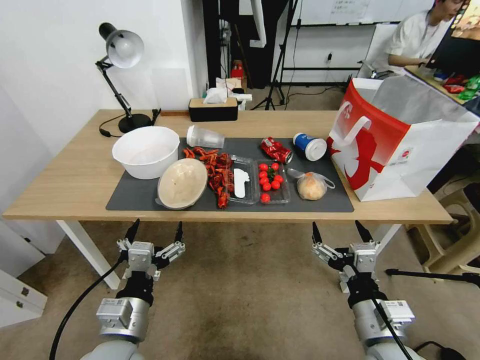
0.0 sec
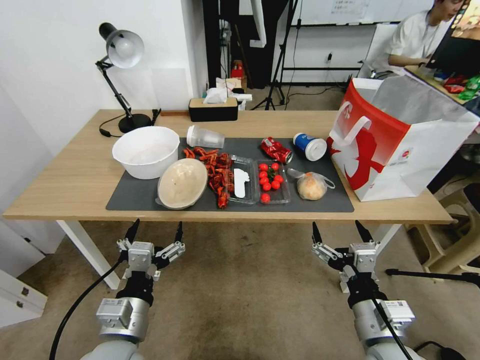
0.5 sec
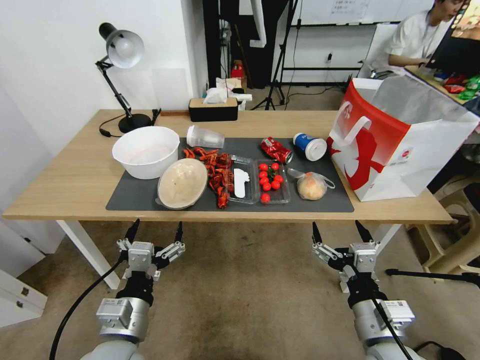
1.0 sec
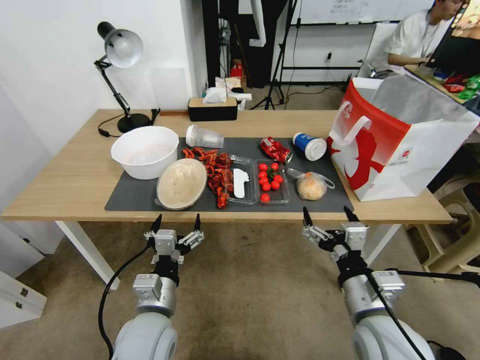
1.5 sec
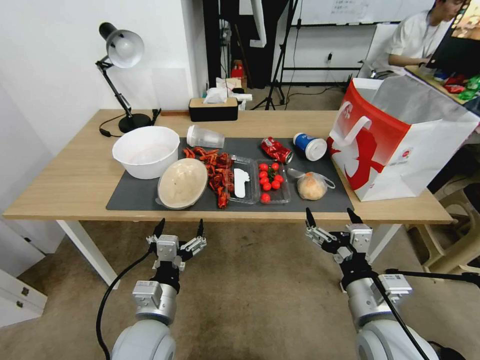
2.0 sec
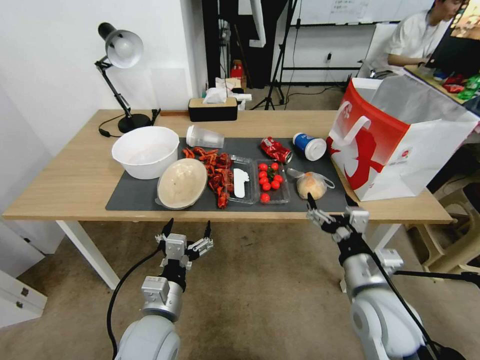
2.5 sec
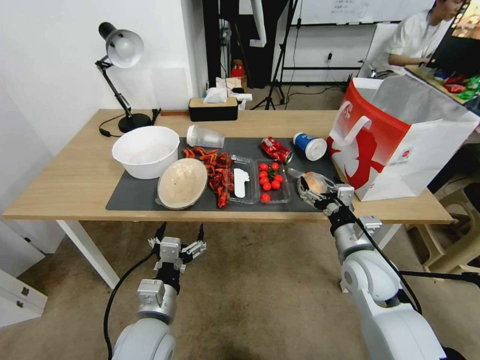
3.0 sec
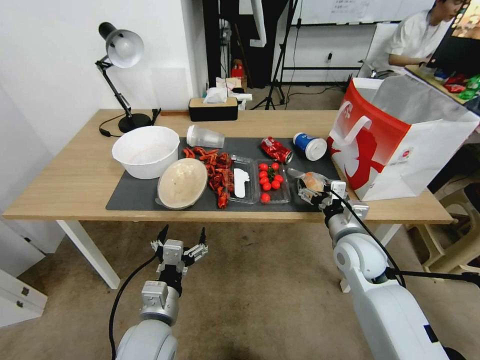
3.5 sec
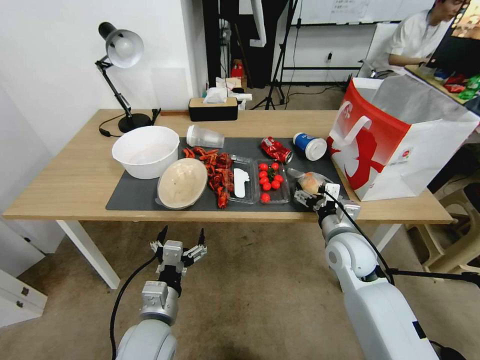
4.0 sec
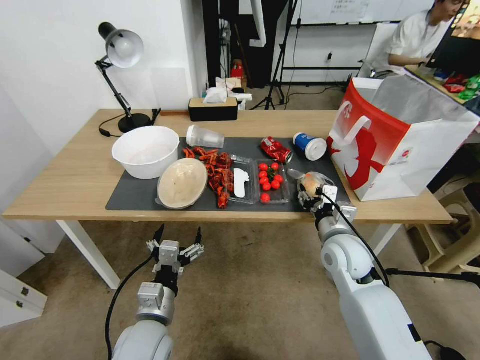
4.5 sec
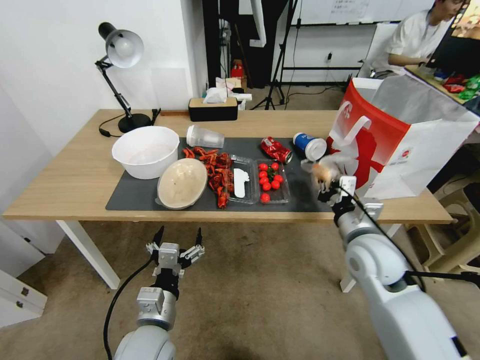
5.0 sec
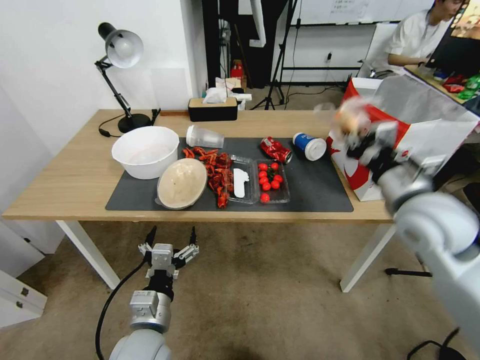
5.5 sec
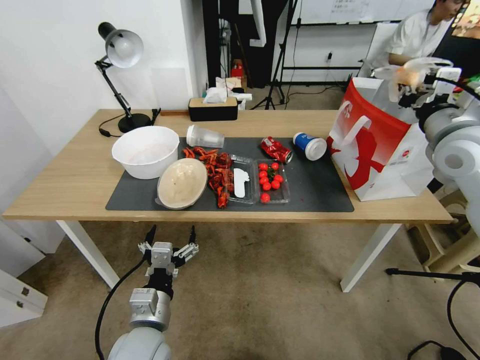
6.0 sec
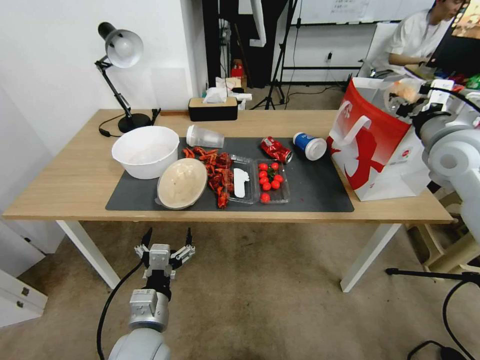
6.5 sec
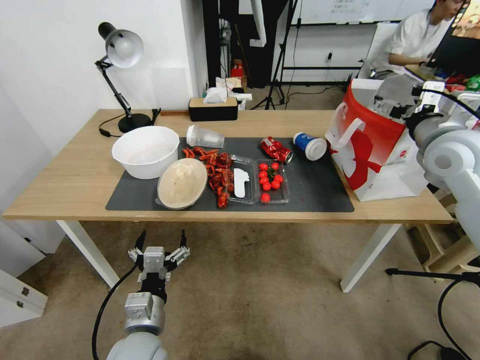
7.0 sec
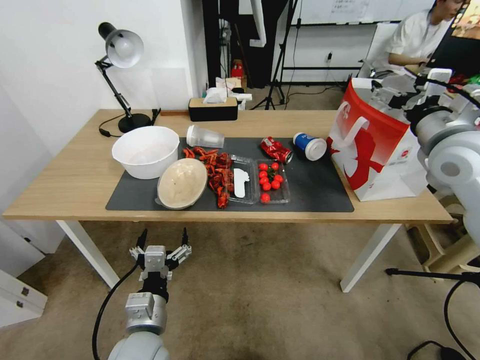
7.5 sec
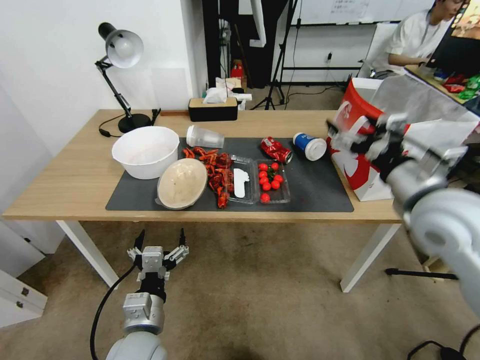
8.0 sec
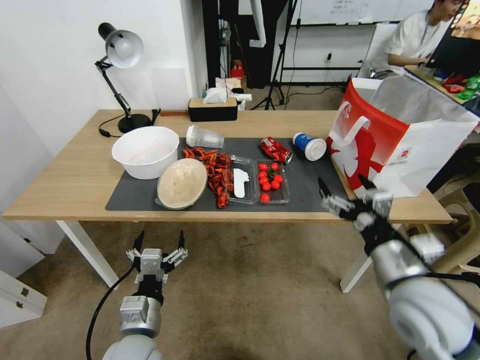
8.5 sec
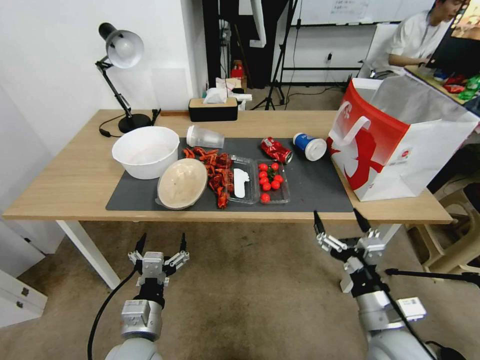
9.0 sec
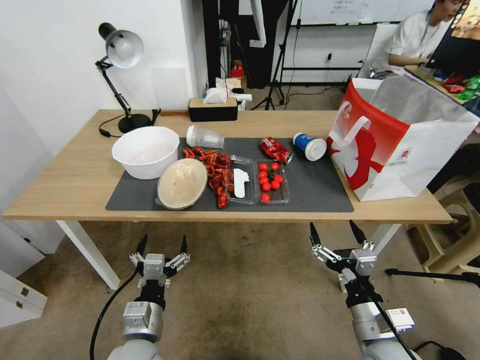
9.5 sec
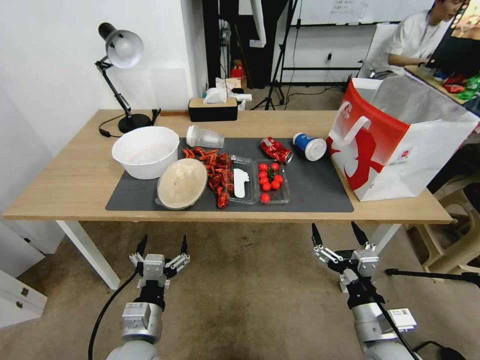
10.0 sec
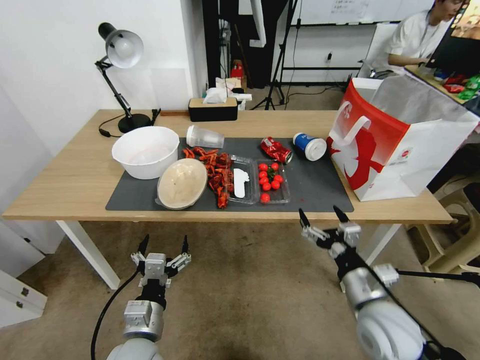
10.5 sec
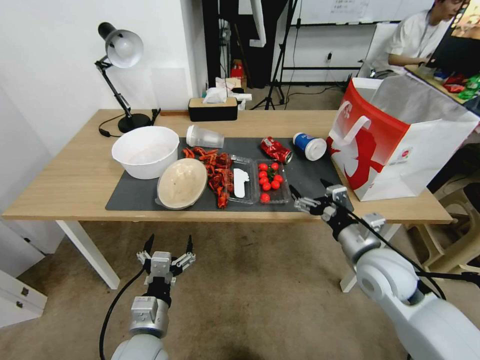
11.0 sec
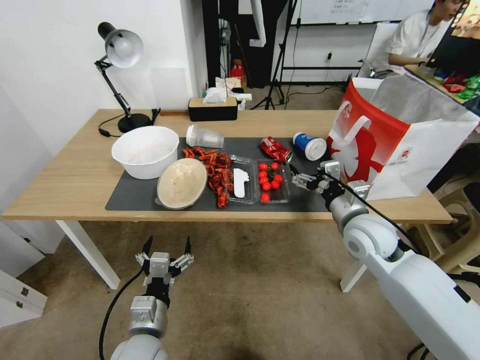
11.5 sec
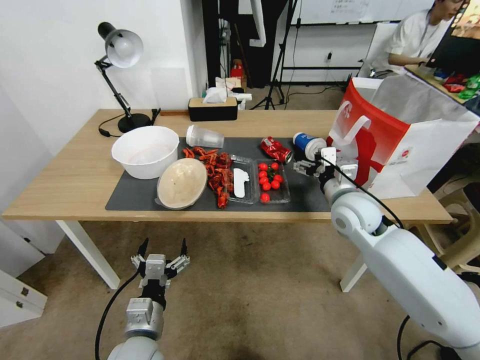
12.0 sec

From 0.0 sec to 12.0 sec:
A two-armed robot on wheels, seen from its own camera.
From 2.0 sec to 4.0 sec: The right gripper moves forward, some 20 cm.
From 4.0 sec to 6.0 sec: The right gripper moves upward and to the right, about 30 cm, and closes its fingers.
From 6.0 sec to 8.0 sec: The right gripper moves backward, to the left and downward, approximately 15 cm, and opens up.
From 8.0 sec to 10.0 sec: The right gripper goes some 25 cm downward and backward.
From 10.0 sec to 12.0 sec: The right gripper shifts approximately 25 cm forward.

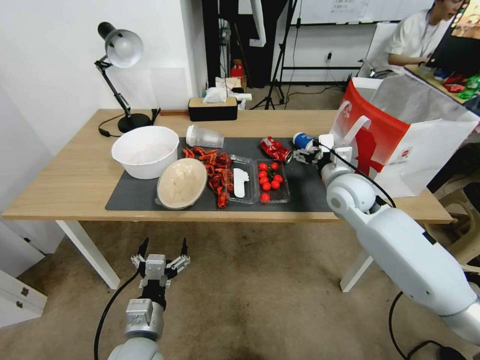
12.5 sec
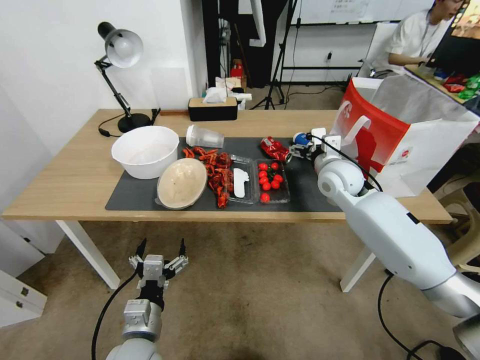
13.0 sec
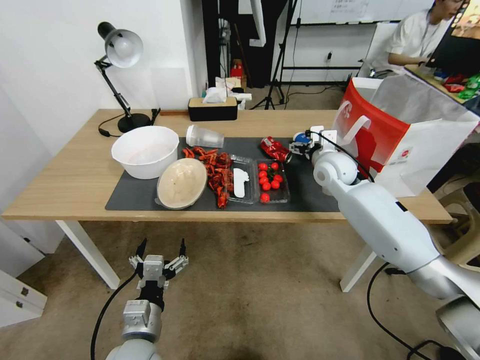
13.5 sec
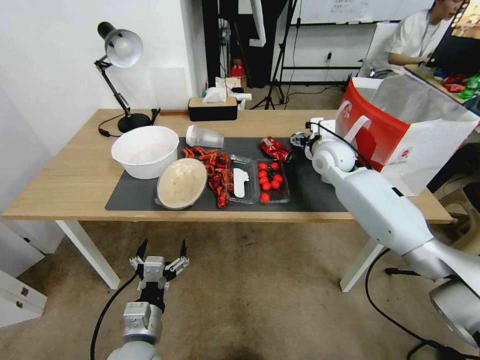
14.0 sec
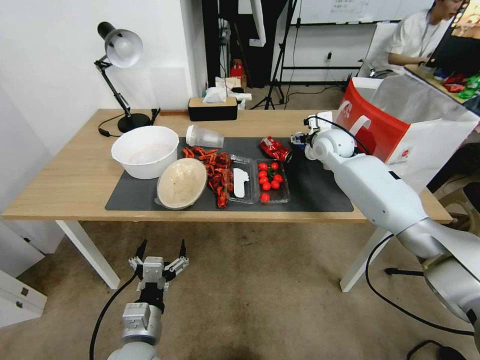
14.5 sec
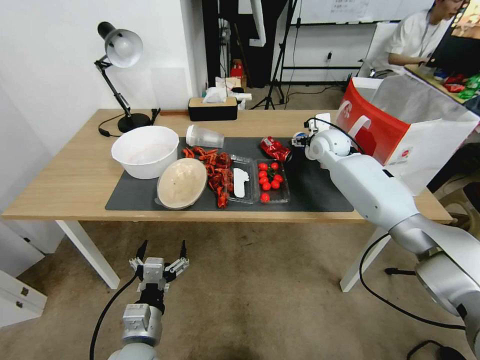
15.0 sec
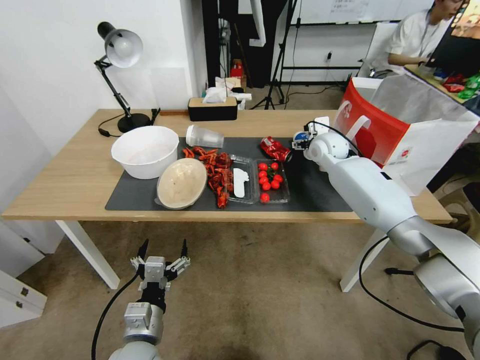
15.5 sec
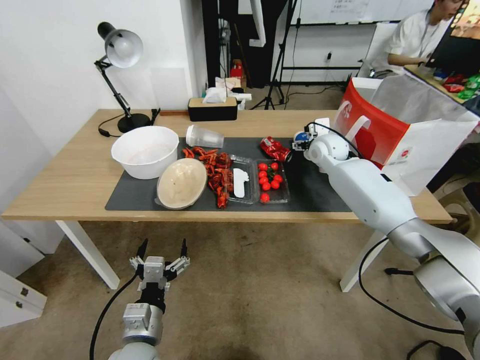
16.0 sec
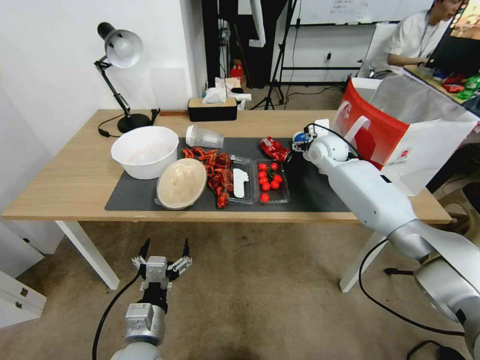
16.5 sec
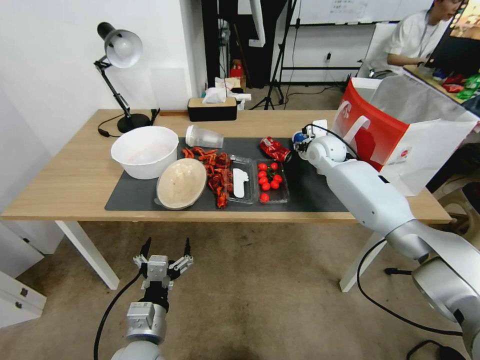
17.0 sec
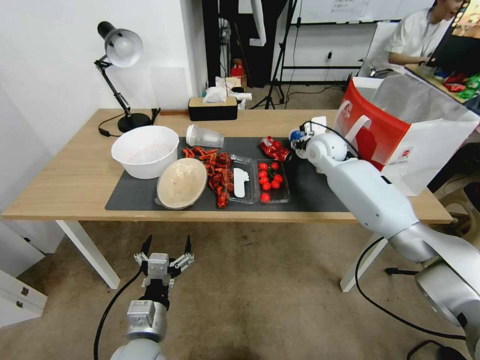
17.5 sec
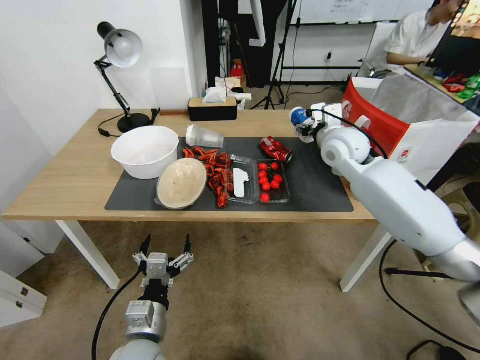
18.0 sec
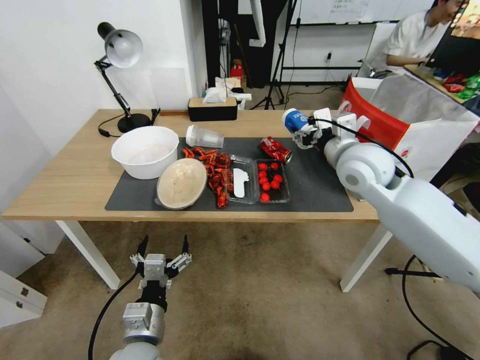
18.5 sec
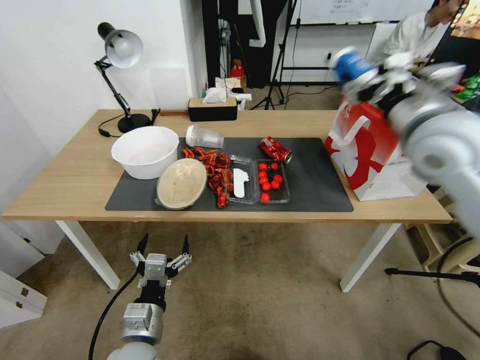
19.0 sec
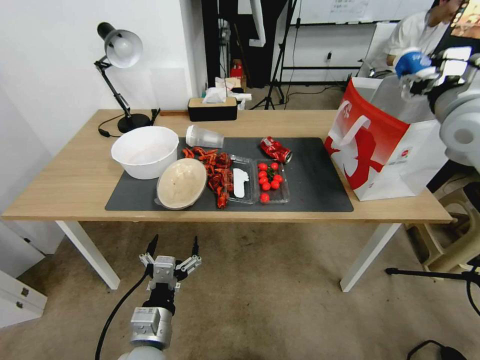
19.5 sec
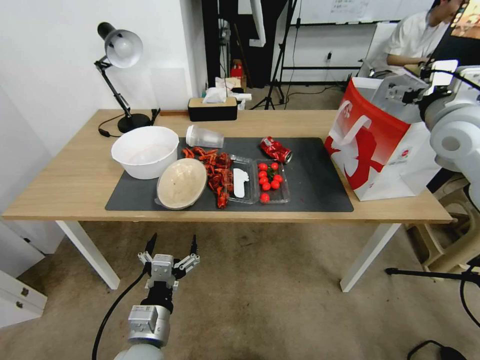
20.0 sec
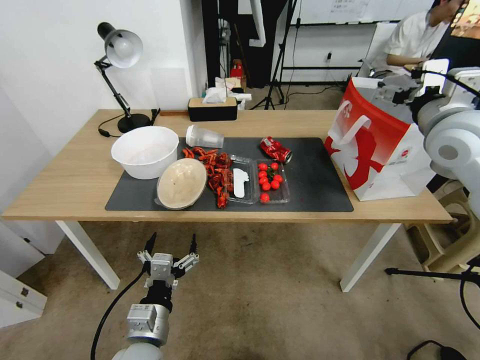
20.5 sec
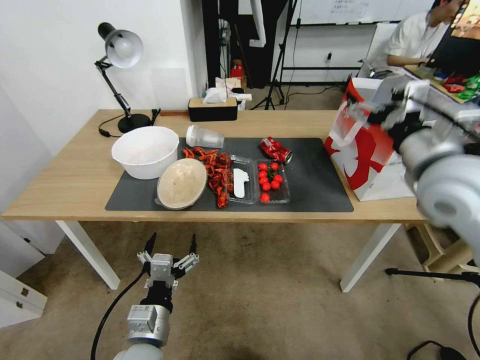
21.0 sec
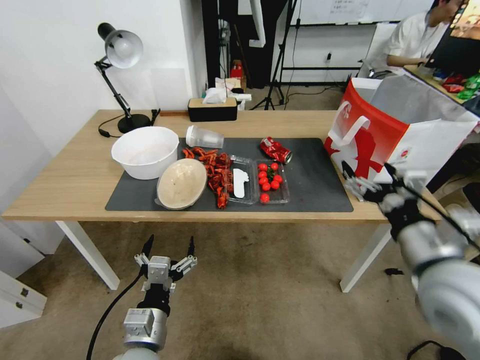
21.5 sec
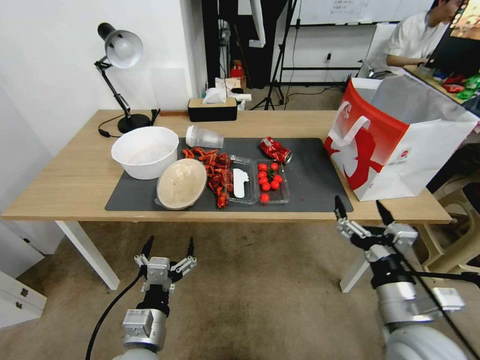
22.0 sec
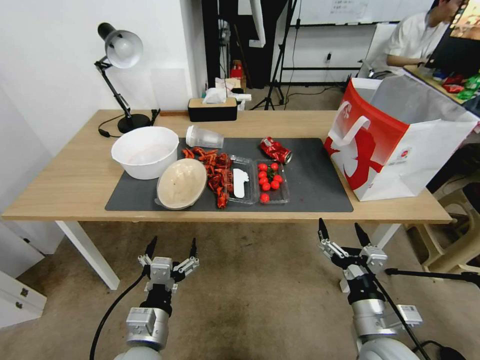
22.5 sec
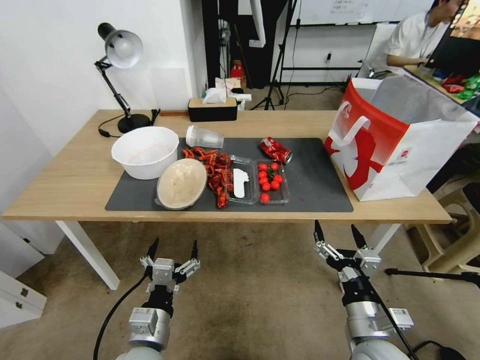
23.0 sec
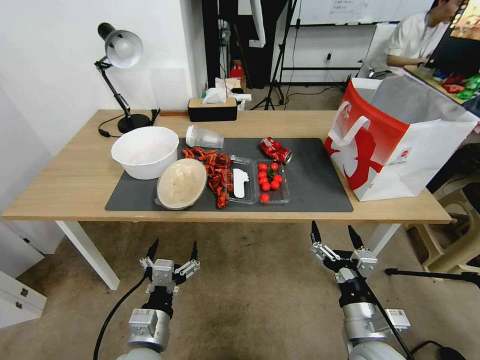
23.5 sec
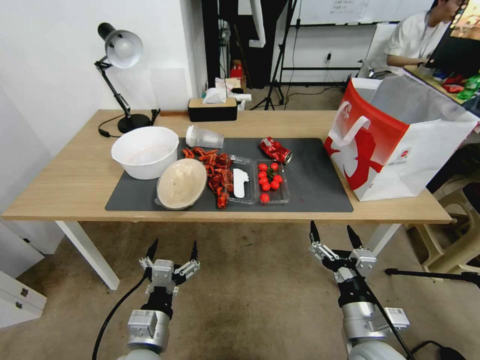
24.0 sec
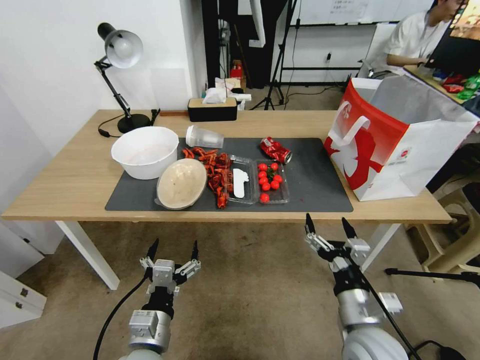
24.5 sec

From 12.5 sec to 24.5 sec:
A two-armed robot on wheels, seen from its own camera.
From 12.5 sec to 14.5 sec: The right gripper shifts about 15 cm forward.
From 14.5 sec to 16.5 sec: There are only small adjustments of the grippers.
From 16.5 sec to 18.5 sec: The right gripper shifts about 20 cm backward and upward, and closes.
From 18.5 sec to 20.5 sec: The right gripper heads to the right and upward, covering approximately 15 cm, and opens.
From 20.5 sec to 22.5 sec: The right gripper shifts roughly 40 cm downward and backward.
From 22.5 sec to 24.5 sec: The grippers stay close to where they were, moving slightly.

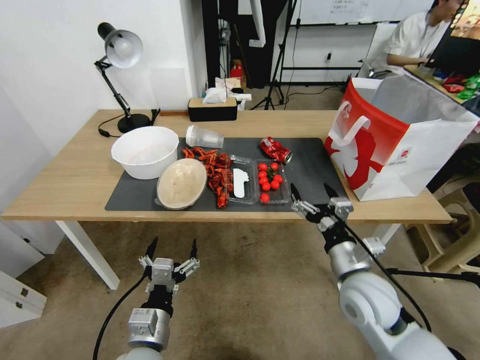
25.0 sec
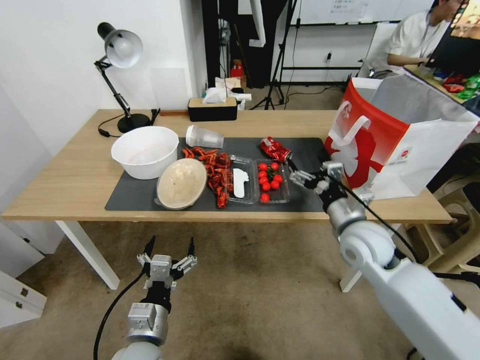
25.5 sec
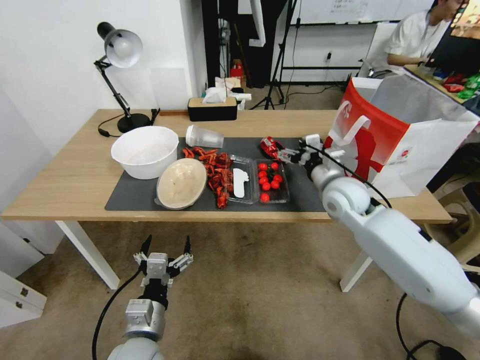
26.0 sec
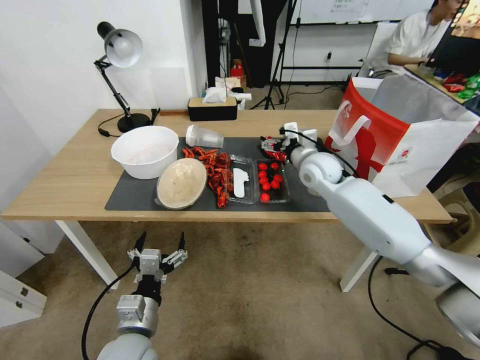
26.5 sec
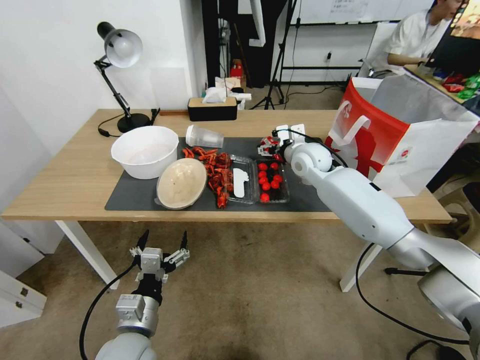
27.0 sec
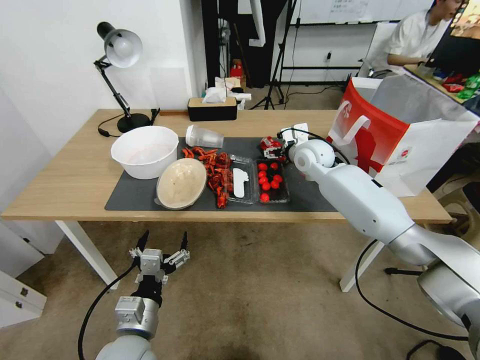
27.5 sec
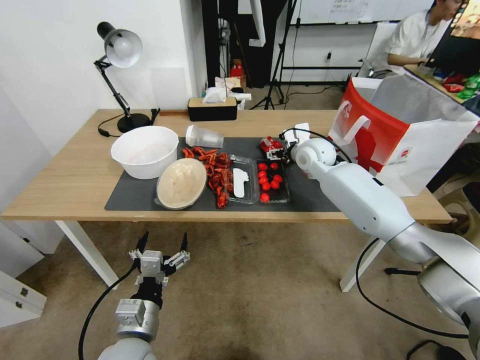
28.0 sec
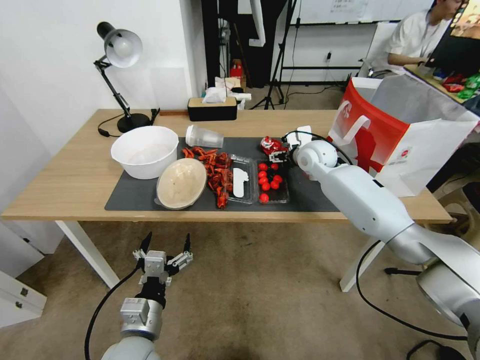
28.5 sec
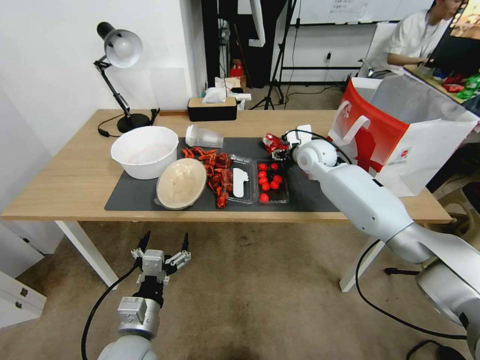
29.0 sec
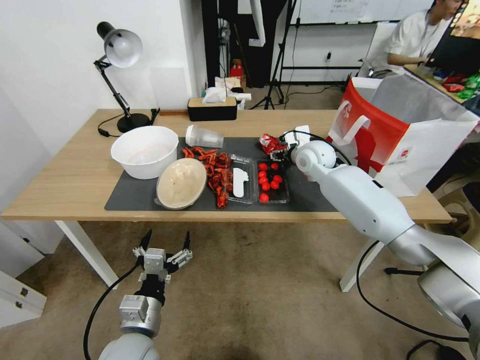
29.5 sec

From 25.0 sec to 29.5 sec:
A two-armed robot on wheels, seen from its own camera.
From 25.0 sec to 27.0 sec: The right gripper travels forward by roughly 30 cm.
From 27.0 sec to 29.5 sec: The right gripper closes up.
